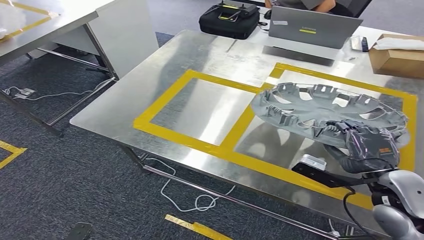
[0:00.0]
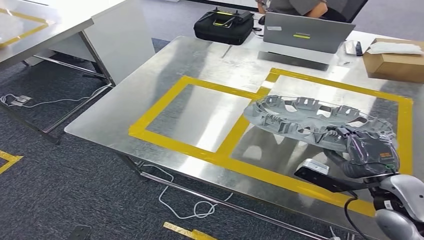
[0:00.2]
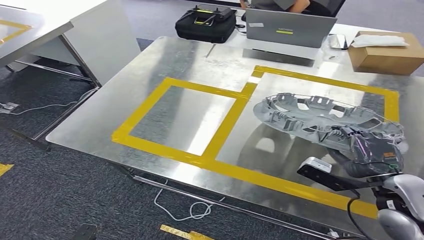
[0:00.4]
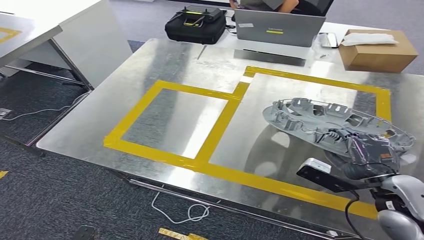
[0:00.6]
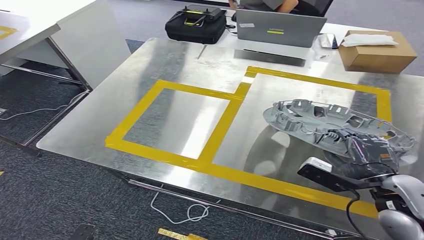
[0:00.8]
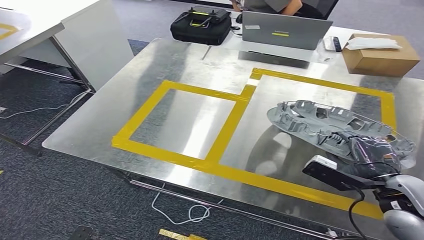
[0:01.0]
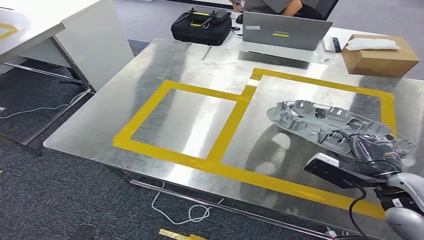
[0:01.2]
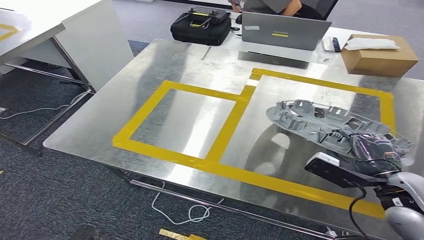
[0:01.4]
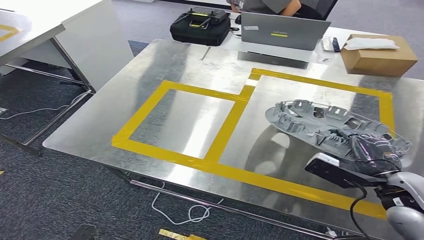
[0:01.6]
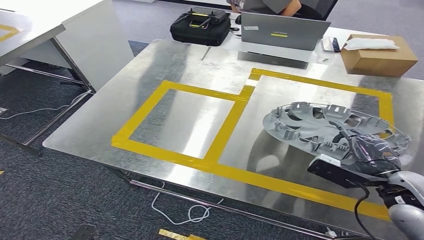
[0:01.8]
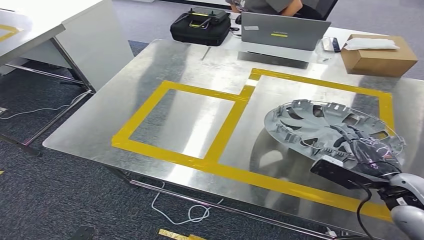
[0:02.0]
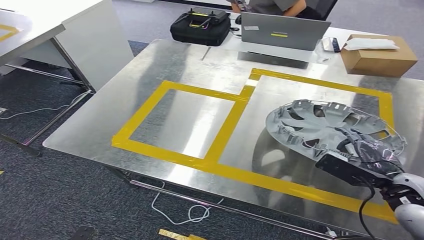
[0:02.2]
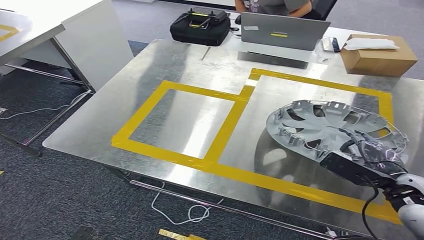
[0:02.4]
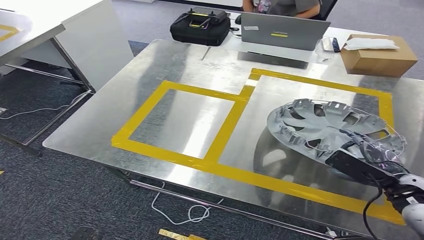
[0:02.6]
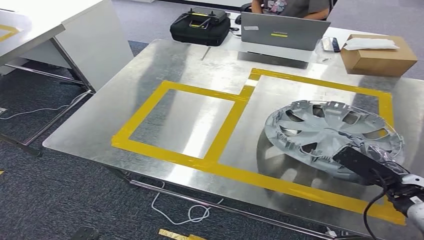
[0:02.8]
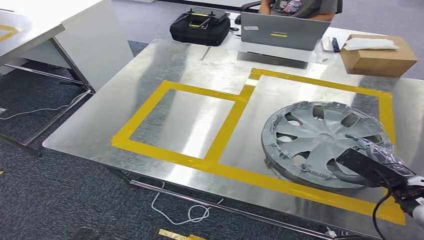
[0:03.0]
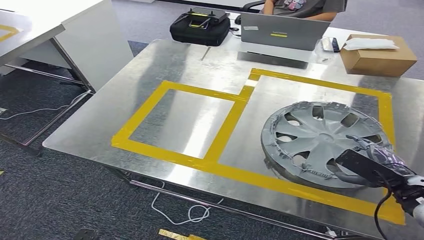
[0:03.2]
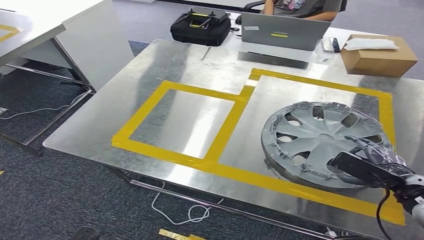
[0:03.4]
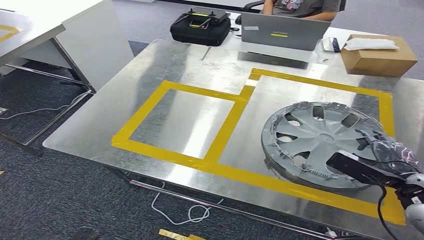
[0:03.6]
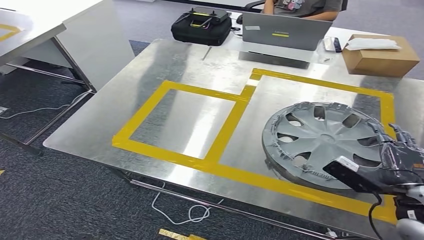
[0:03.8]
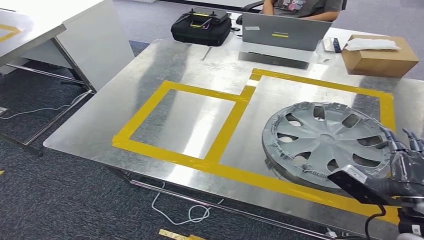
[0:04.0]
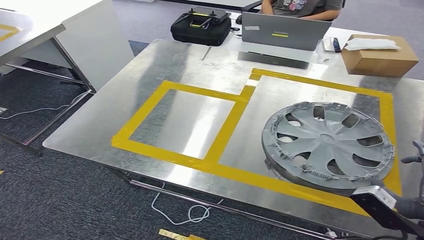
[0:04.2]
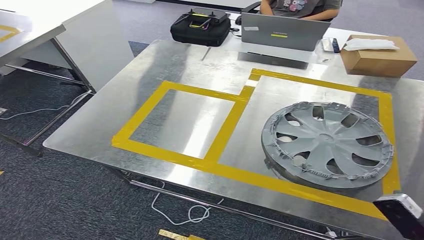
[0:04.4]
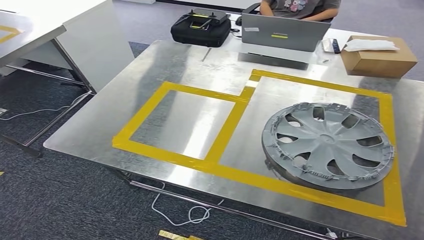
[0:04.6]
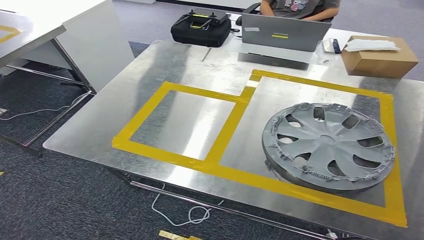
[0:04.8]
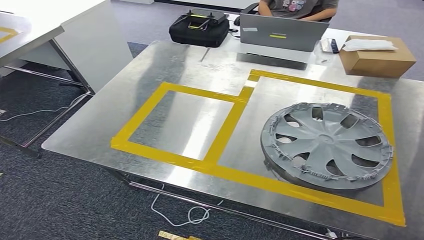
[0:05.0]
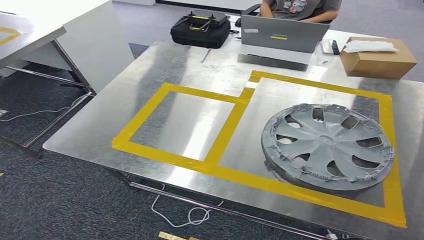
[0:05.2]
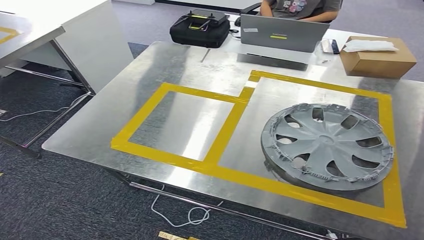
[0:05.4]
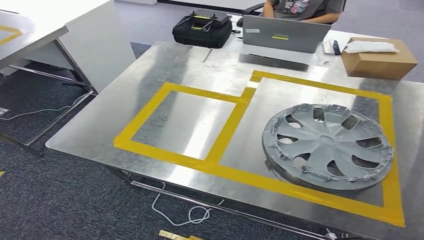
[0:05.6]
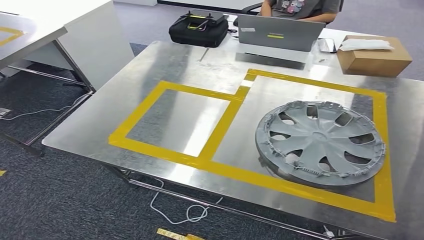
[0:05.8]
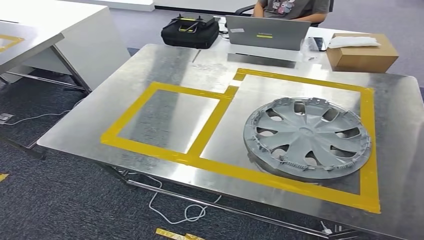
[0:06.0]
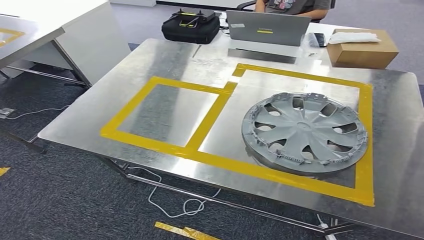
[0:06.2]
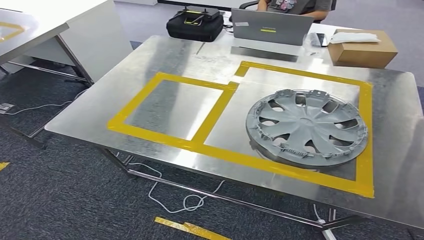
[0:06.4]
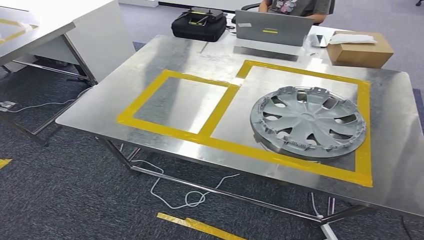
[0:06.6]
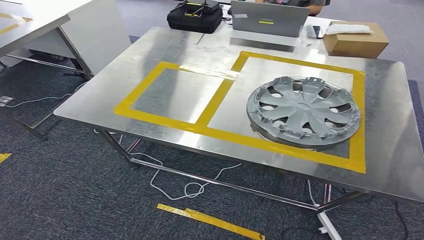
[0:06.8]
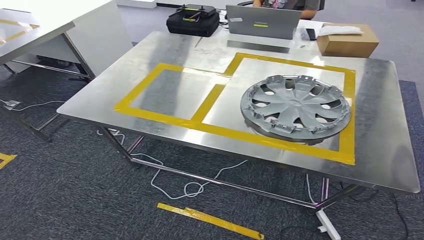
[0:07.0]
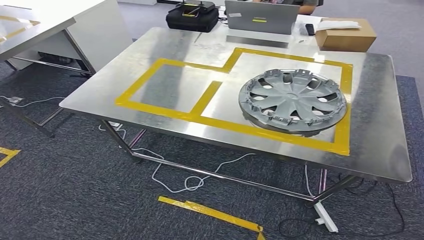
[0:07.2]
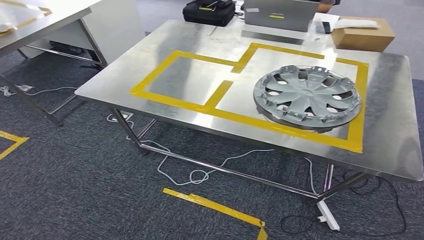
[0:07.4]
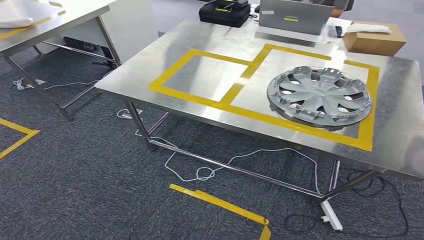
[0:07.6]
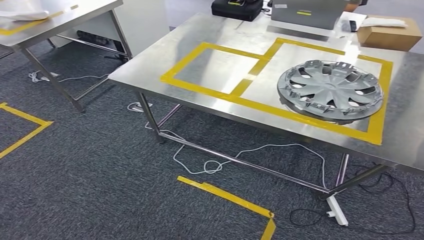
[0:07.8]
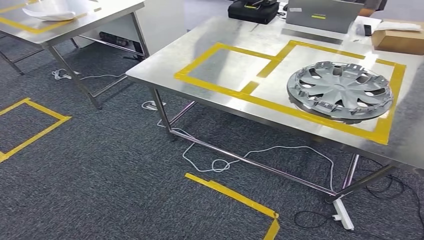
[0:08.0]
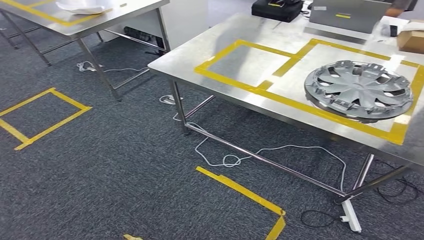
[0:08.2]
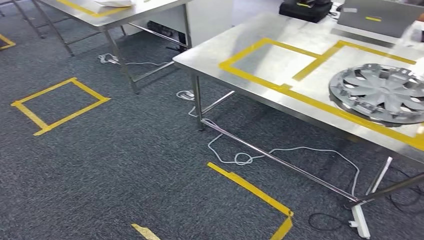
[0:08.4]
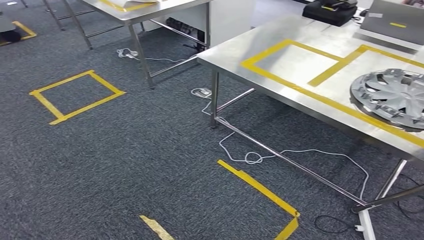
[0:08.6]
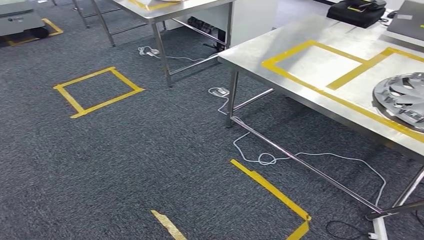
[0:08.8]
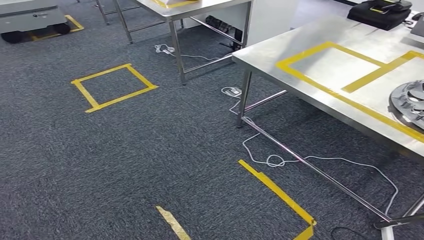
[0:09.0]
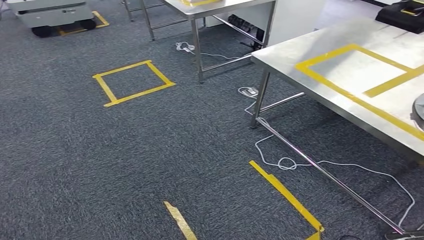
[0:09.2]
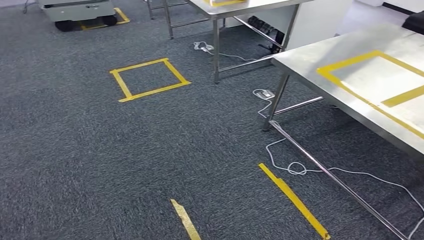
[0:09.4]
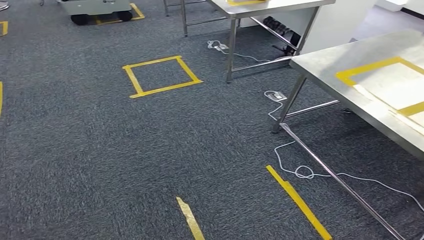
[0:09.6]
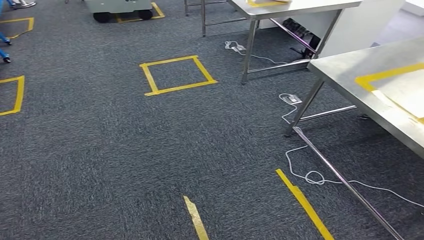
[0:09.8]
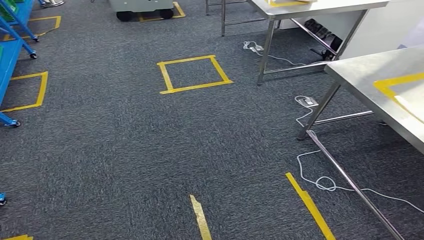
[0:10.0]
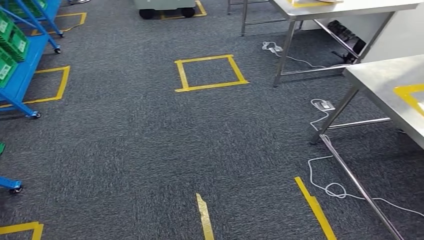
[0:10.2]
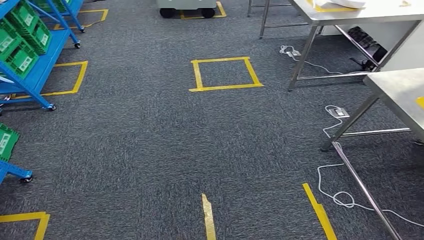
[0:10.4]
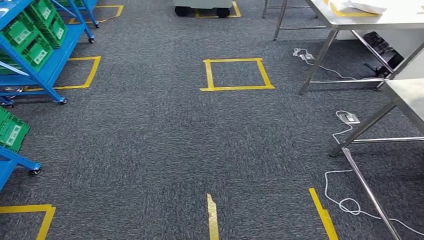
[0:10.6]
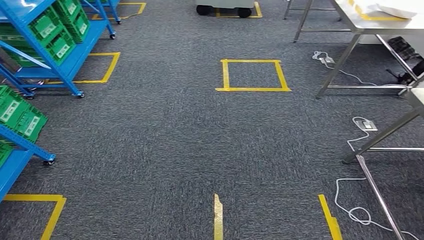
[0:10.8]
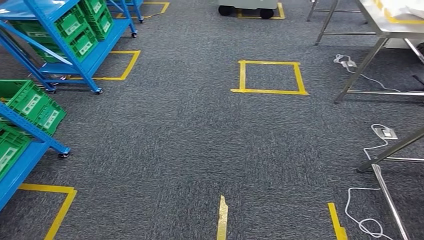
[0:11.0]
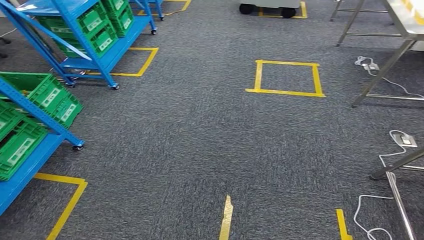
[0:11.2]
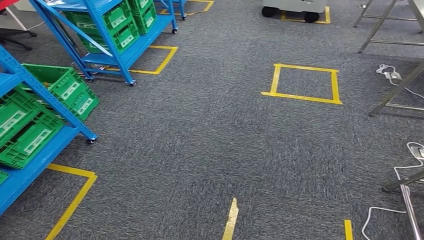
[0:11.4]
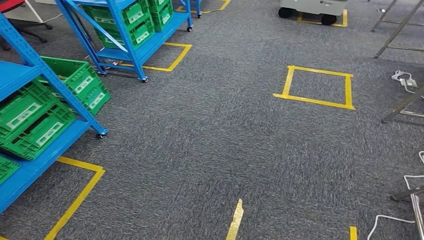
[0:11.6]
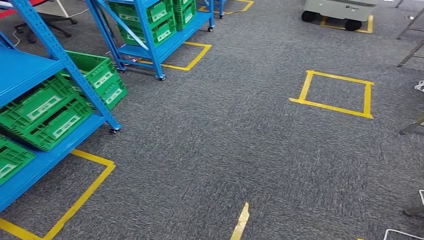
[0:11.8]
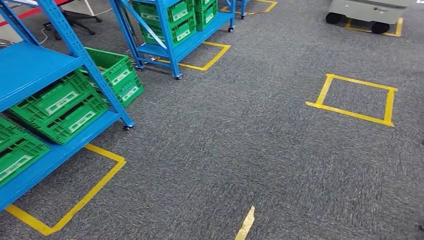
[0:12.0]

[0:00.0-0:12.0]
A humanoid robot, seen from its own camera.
Step, 0:00.0 to 0:11.0: Insert the small parts into the corresponding holes on the workbench.
0:01.6 to 0:03.0: The right hand goes roughly 5 cm to the right.
0:03.0 to 0:04.4: The right hand goes about 10 cm backward, while the left hand ends up approximately 5 cm from where it was.

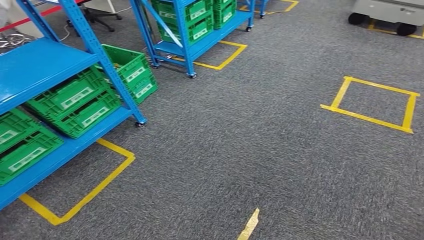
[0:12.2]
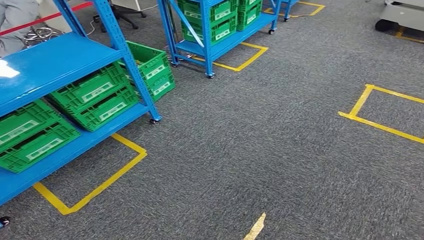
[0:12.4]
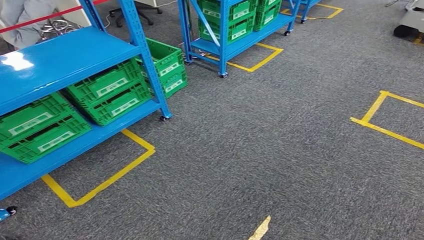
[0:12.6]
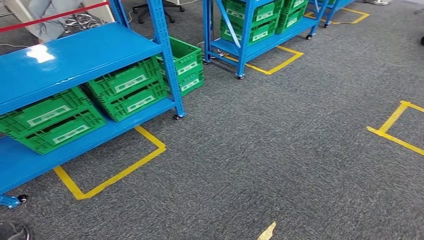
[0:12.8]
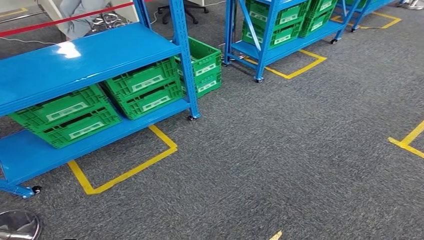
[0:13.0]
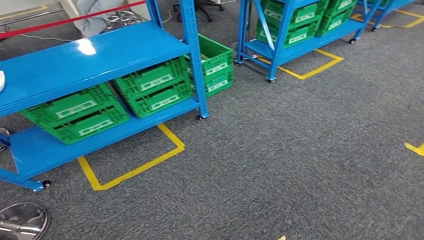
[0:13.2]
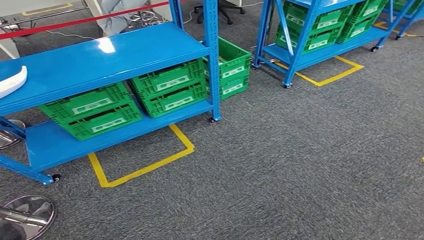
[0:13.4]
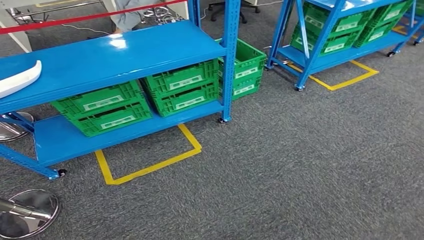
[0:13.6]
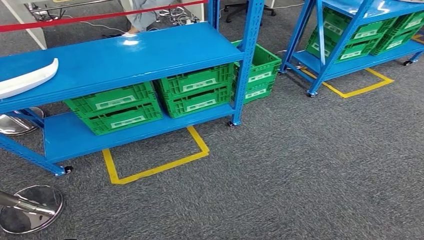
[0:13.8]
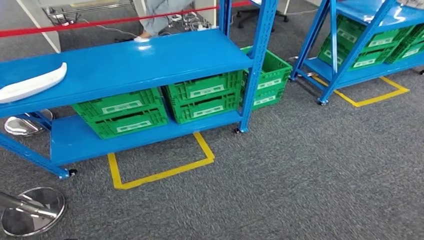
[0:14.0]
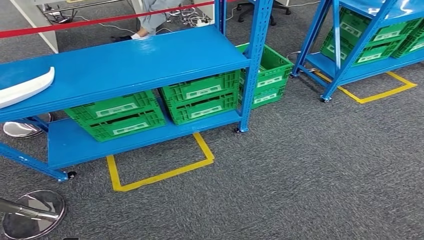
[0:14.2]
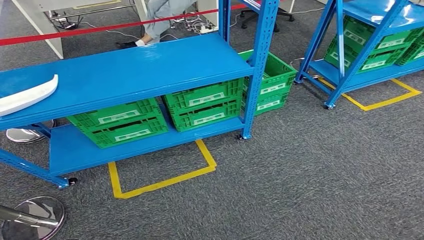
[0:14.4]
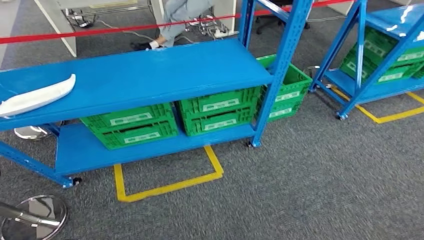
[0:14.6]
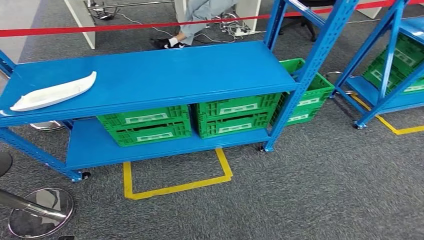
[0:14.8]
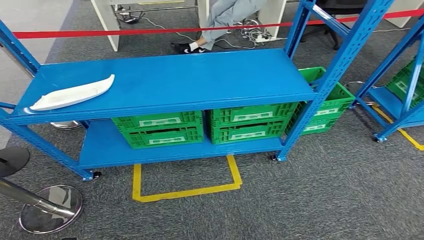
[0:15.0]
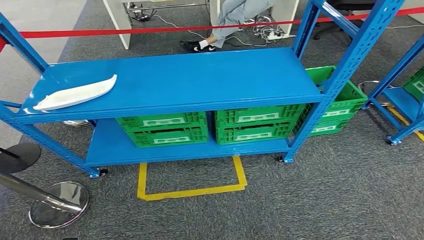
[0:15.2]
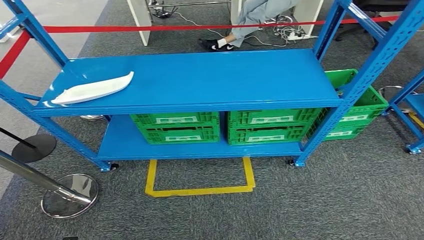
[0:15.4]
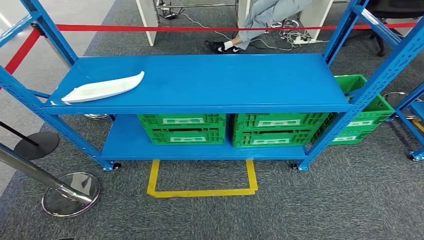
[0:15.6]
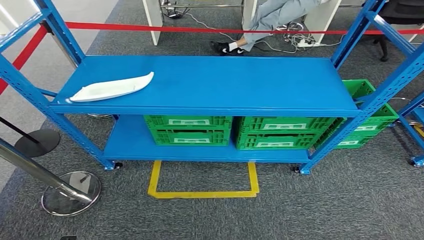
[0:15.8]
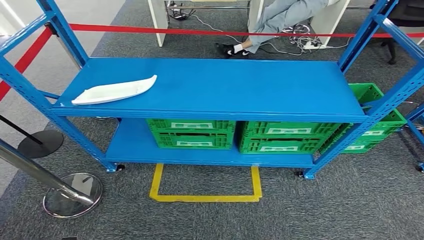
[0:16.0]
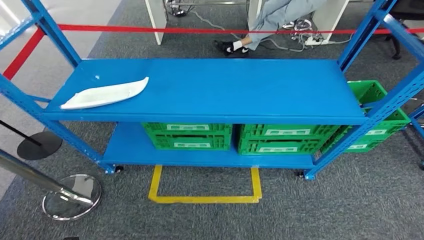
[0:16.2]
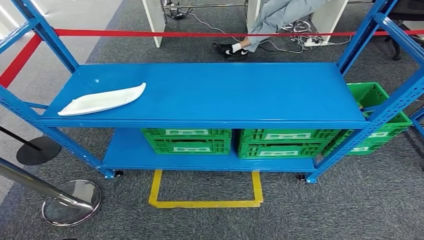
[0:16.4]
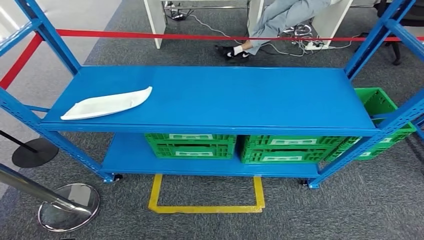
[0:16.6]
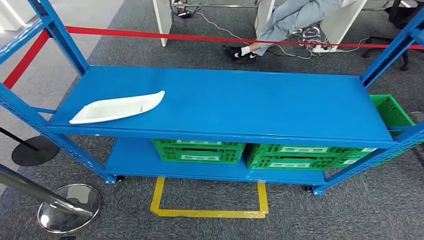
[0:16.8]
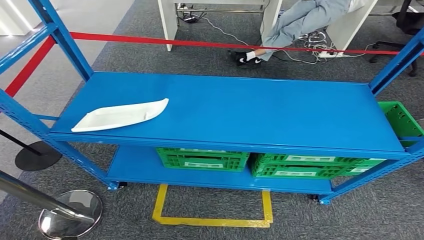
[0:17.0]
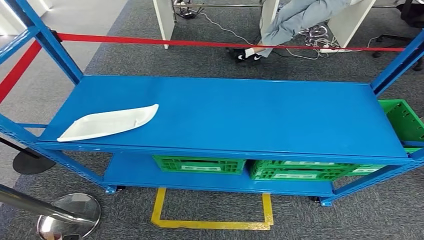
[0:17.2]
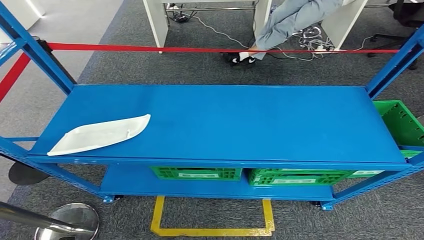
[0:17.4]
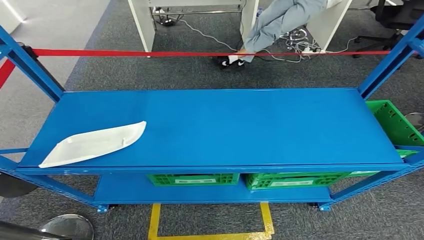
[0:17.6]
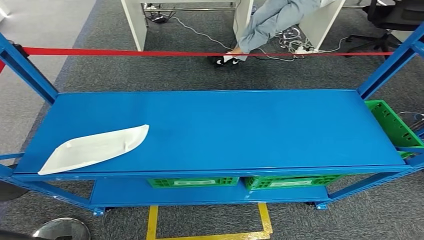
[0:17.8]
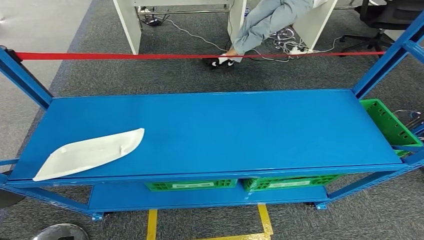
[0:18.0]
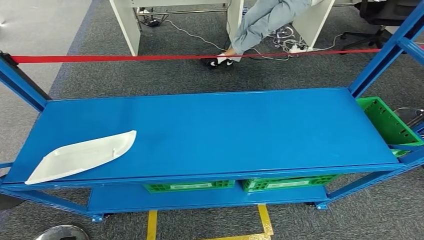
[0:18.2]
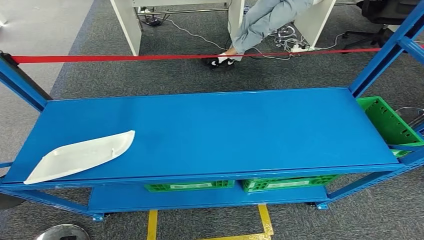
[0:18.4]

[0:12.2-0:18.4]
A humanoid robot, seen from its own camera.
Step, 0:12.2 to 0:18.4: Move to the initial position of the workbench.
